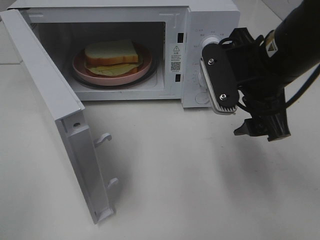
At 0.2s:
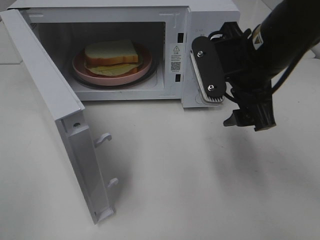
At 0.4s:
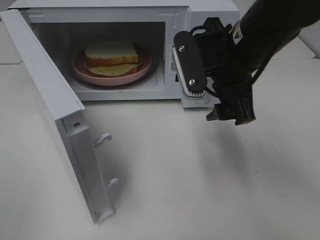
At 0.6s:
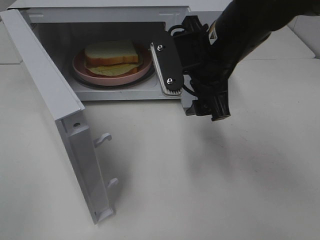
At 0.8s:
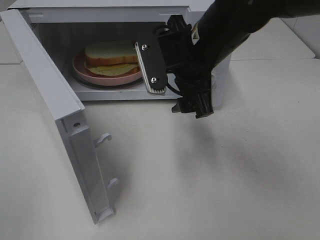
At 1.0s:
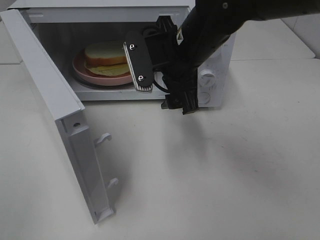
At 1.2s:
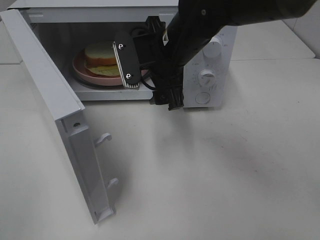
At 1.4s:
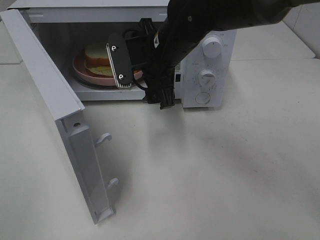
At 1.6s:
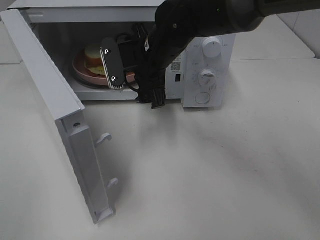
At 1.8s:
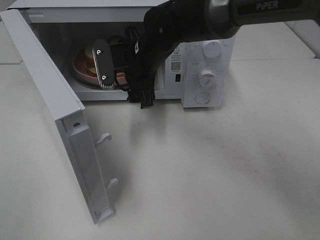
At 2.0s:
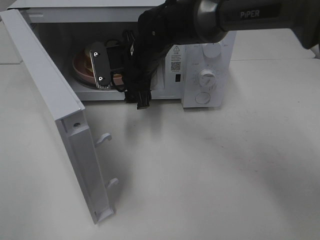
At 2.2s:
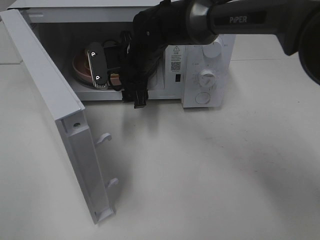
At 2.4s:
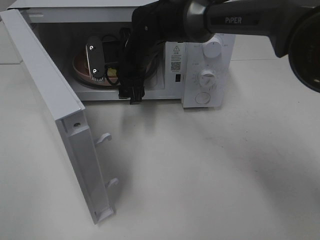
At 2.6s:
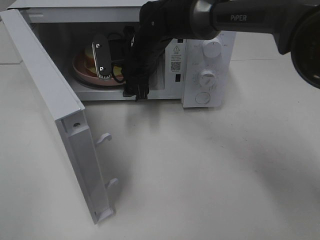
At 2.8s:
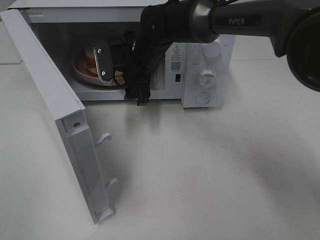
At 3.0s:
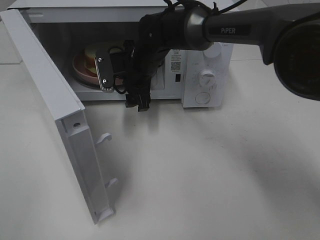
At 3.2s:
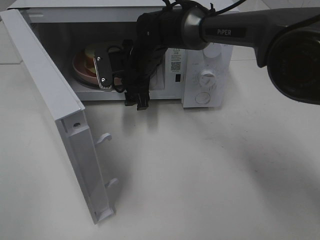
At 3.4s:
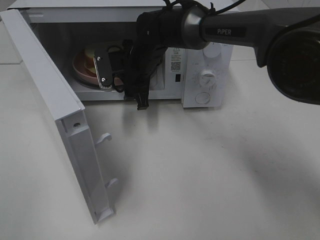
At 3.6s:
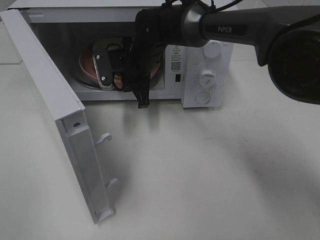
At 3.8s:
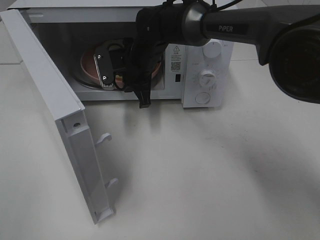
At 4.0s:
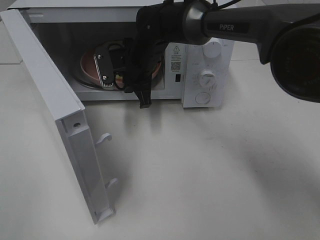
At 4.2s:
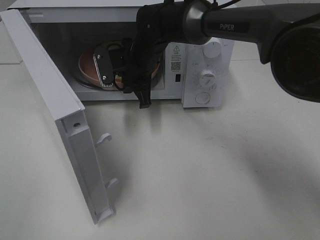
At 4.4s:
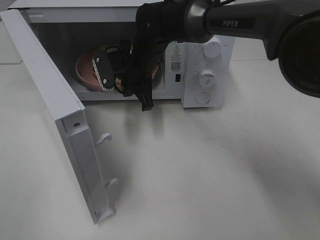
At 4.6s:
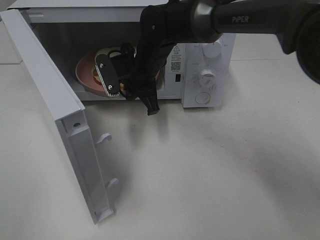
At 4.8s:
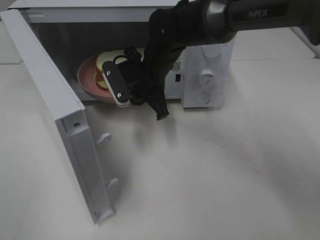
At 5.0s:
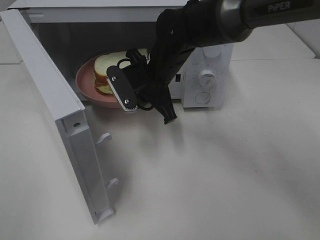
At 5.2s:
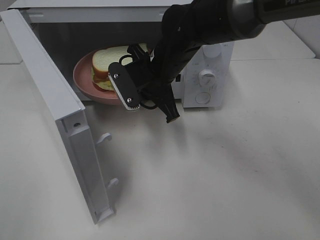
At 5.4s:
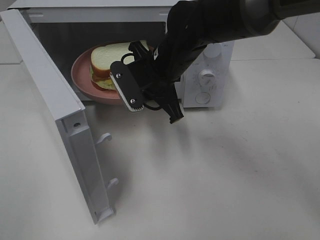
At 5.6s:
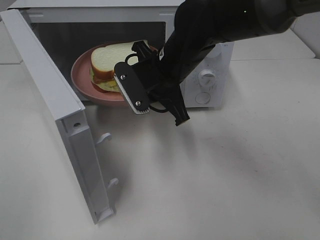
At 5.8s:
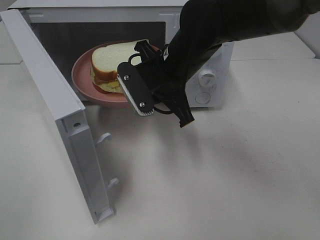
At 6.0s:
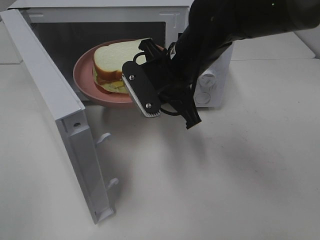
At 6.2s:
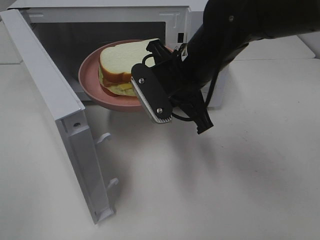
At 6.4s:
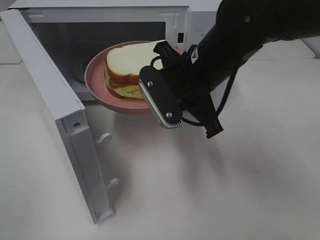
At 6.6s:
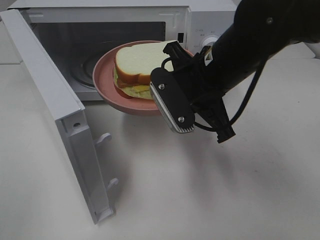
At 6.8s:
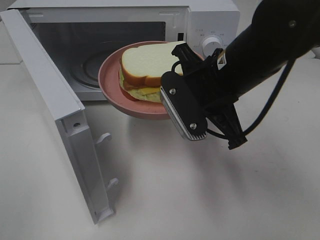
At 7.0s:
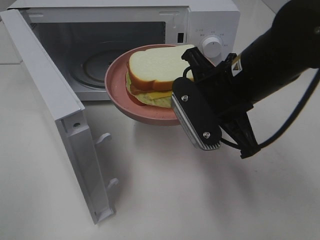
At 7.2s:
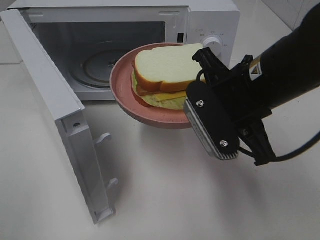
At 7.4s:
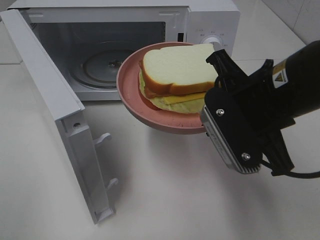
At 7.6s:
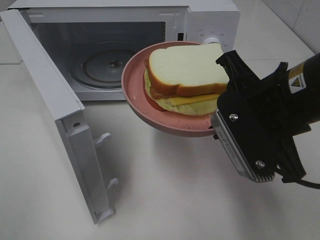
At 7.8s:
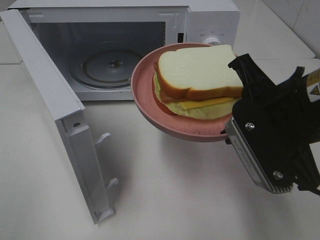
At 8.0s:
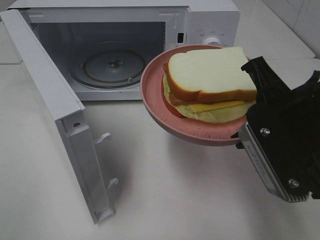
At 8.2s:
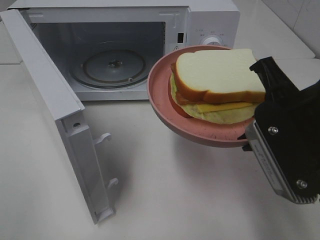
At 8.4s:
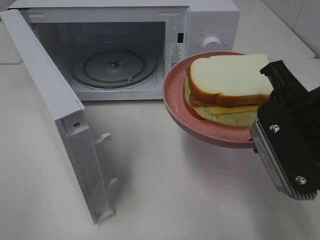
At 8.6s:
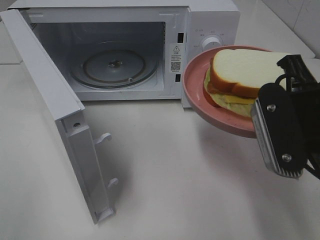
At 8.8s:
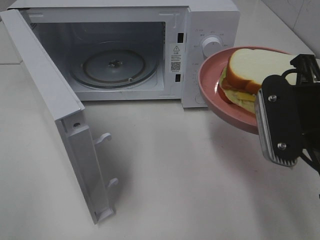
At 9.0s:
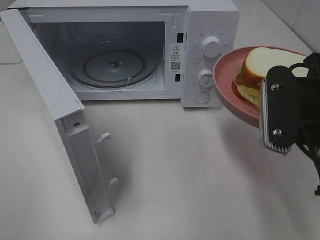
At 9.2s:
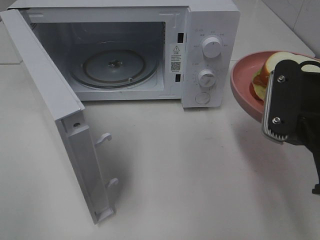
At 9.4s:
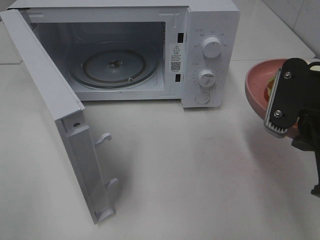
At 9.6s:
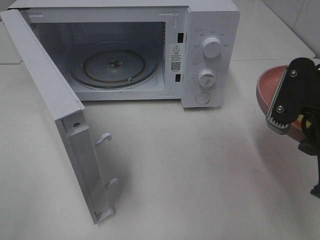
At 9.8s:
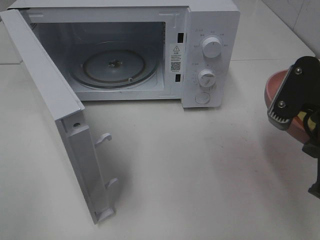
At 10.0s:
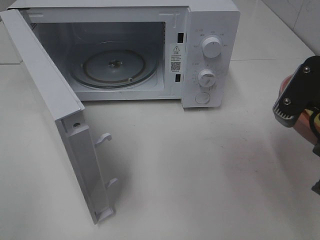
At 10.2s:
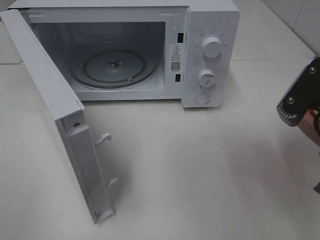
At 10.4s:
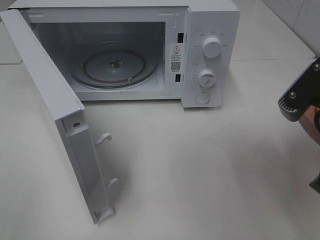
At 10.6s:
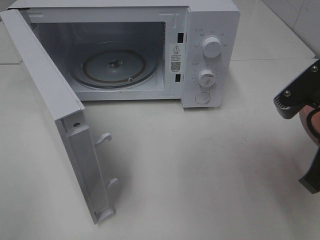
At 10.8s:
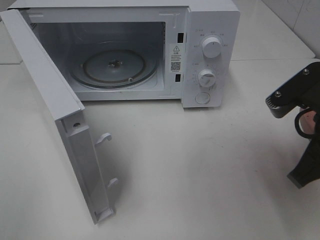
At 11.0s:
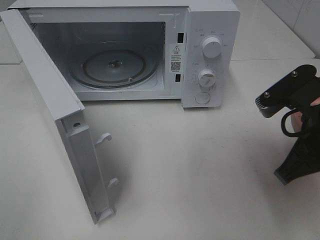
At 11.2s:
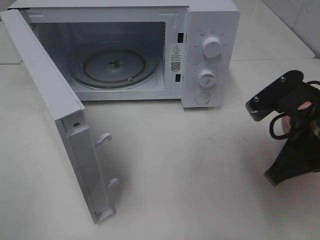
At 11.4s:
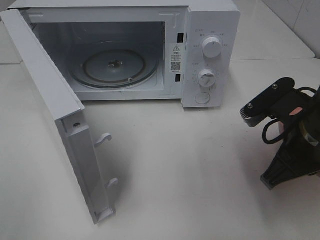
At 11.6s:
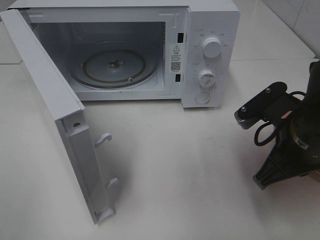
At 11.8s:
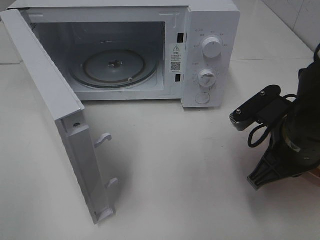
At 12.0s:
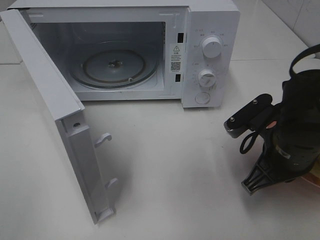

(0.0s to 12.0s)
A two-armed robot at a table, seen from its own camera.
Task of the whole recording: Heat Sandwich.
Step, 0.0s - 3.6s: Right hand: grab the plate with the sandwich.
0.0s - 1.6s: The right gripper travels to the left, forward and downward by some 20 cm.
1.6s - 3.0s: The right gripper goes roughly 5 cm forward.
3.0s - 4.4s: The right gripper closes up.
4.4s - 6.0s: The right gripper is displaced backward, to the right and upward by some 15 cm.
6.0s - 7.6s: The right gripper moves backward and to the right, about 15 cm.
7.6s - 9.0s: The right gripper moves some 5 cm.
10.4s - 12.0s: The right gripper heads downward and forward, covering about 10 cm.

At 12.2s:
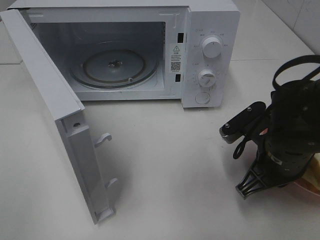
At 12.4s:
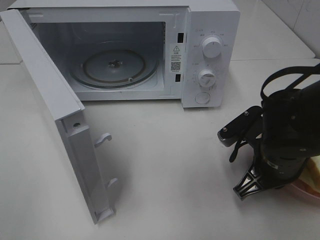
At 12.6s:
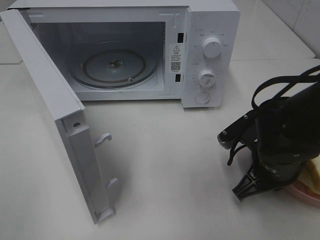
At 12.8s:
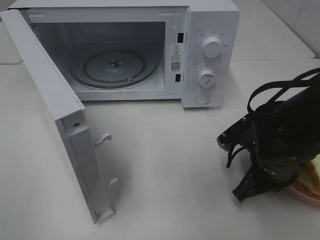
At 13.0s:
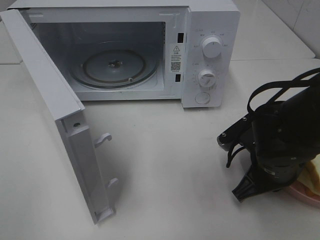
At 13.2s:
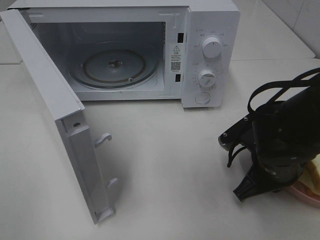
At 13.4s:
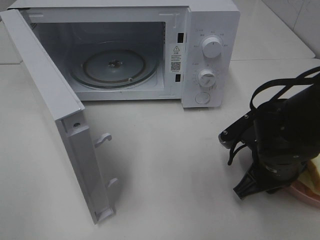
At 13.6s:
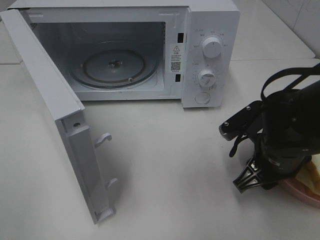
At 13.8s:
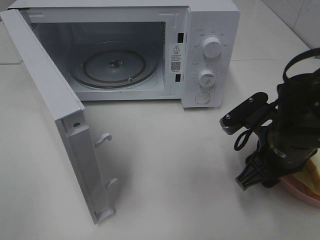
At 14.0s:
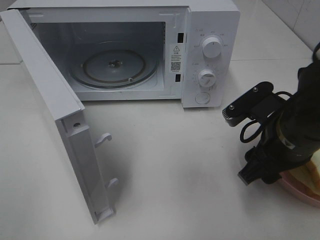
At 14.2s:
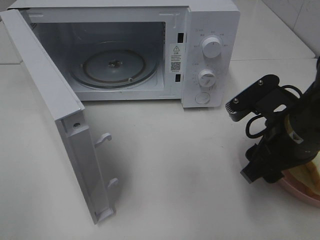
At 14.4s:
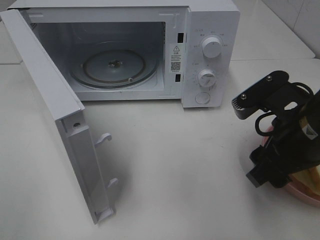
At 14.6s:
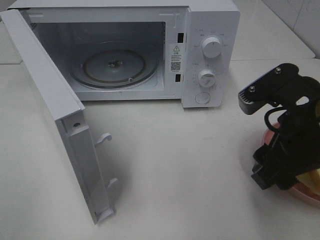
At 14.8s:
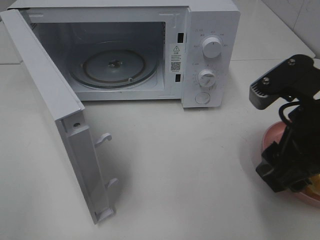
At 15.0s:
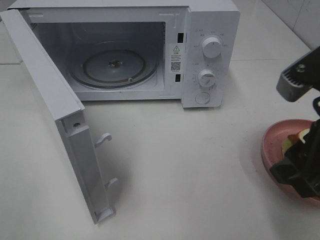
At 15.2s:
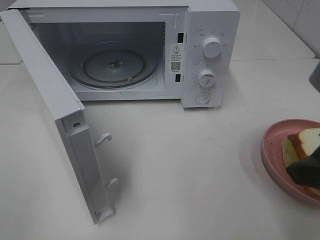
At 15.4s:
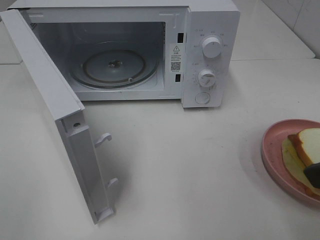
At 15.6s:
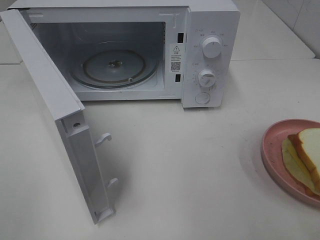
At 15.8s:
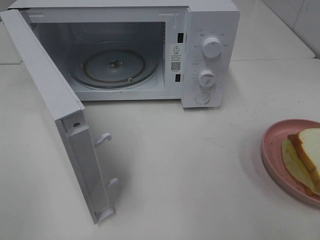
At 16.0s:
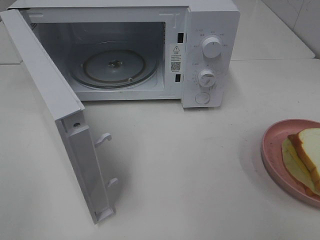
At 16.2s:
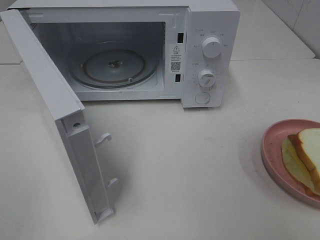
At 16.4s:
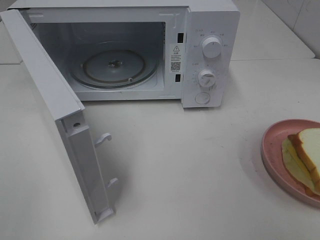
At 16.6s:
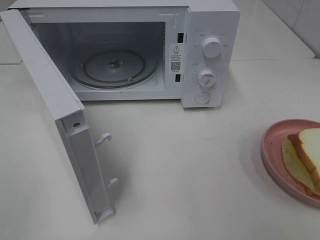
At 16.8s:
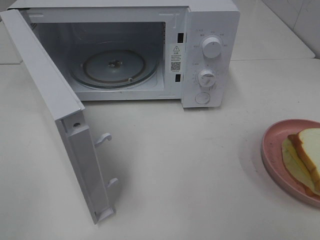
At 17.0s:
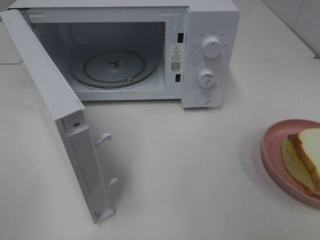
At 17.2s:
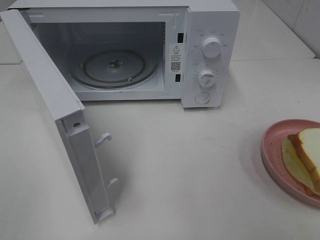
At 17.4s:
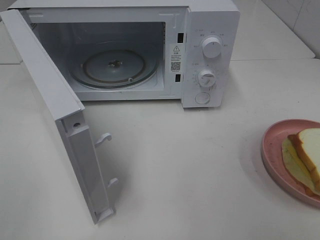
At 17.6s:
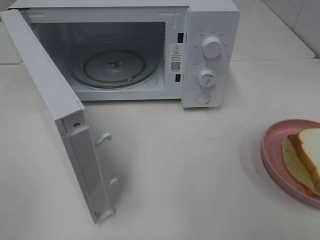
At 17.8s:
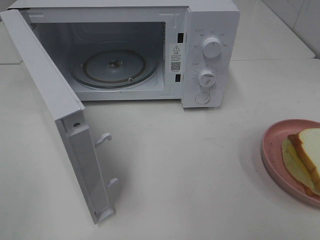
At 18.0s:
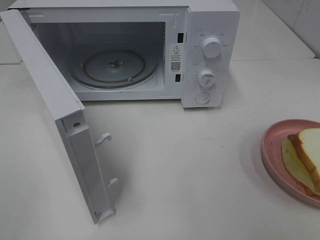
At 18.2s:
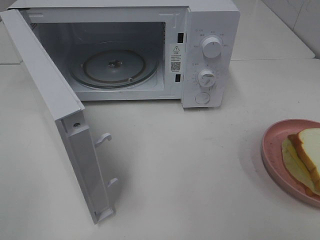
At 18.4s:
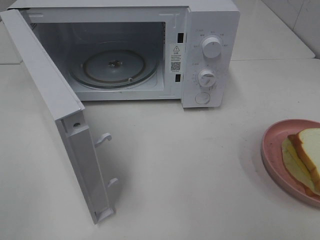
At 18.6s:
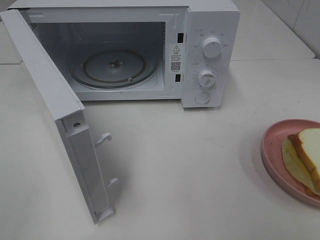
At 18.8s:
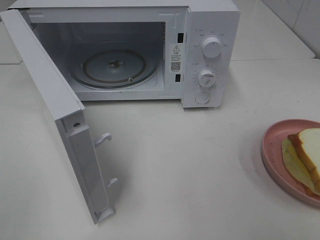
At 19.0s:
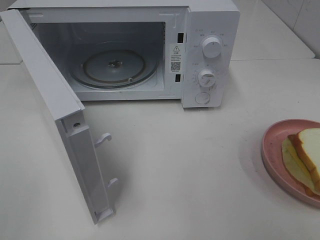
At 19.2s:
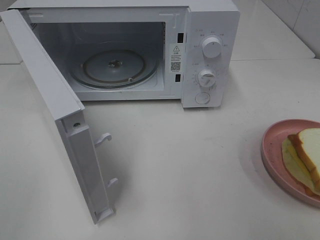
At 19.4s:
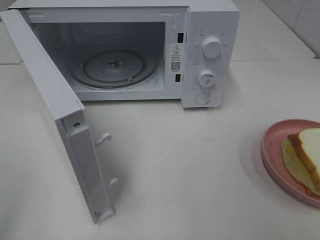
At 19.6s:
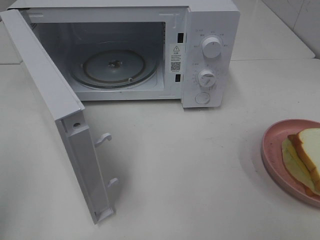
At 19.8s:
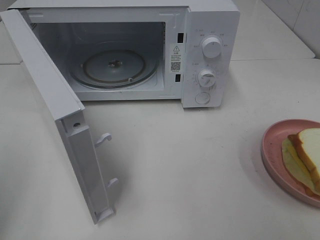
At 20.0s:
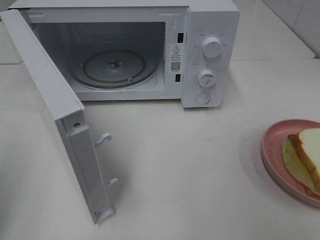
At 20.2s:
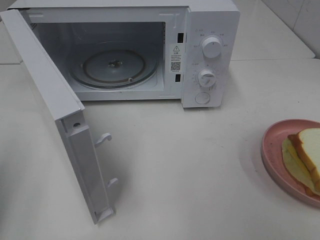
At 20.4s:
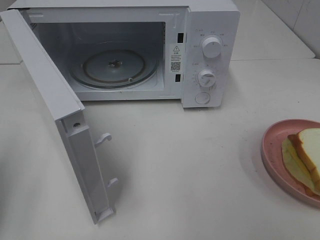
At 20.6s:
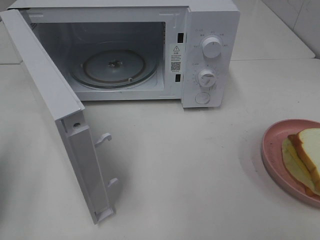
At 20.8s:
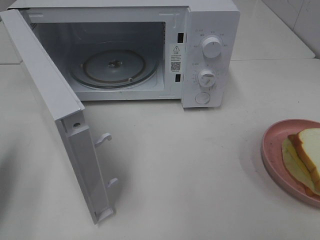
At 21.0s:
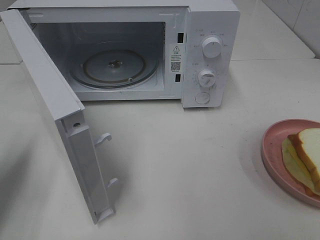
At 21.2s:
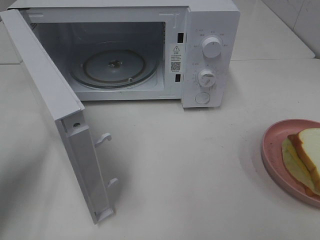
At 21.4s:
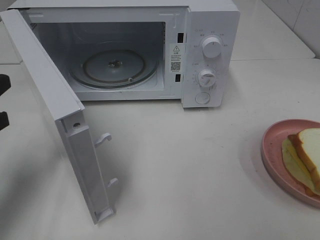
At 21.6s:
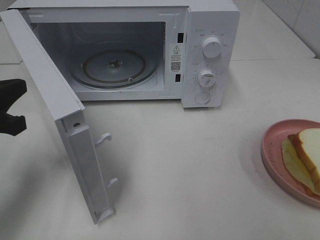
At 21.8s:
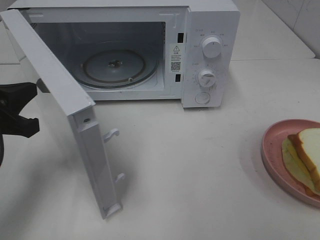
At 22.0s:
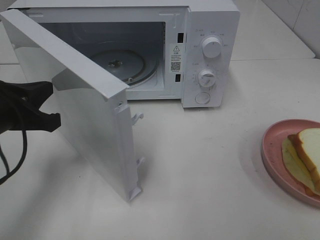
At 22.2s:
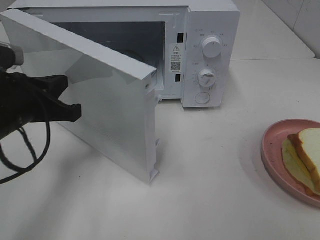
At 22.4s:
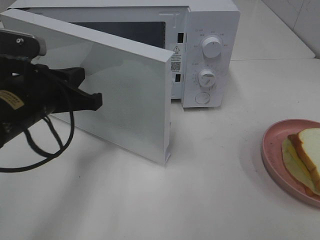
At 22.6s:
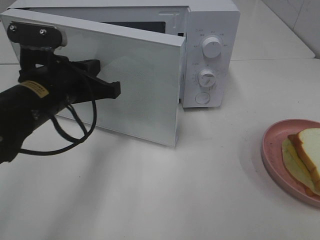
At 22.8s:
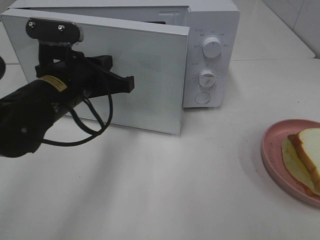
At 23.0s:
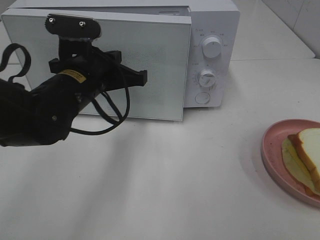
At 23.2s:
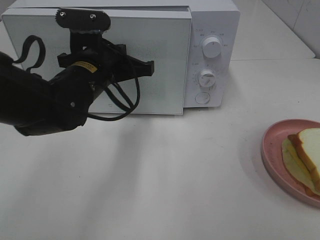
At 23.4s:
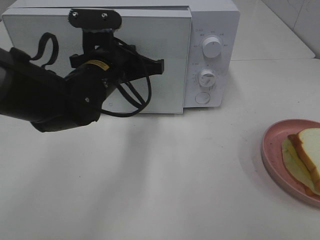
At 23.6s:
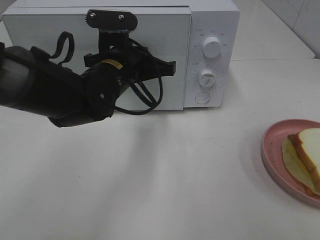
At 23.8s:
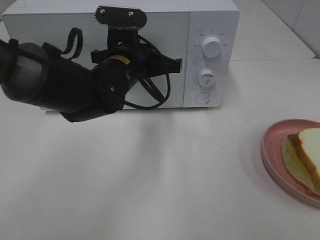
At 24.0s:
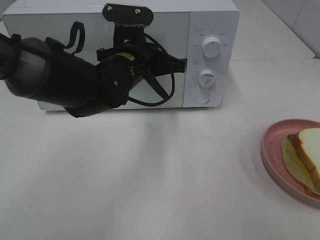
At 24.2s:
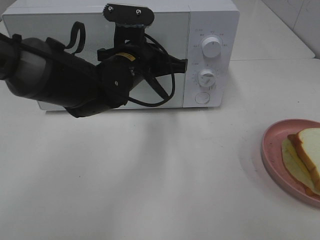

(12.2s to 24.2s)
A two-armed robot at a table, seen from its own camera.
Task of the whole recording: Heat Sandwich.
Step, 12.2s - 15.0s: Right hand: place the plate on the table.
12.2s - 13.8s: The right gripper opens.
13.8s - 15.2s: The right gripper goes approximately 15 cm upward and backward.
15.2s - 16.6s: The right gripper heads backward and to the right, covering approximately 15 cm.
19.8s - 21.2s: The left gripper heads forward and downward, covering roughly 15 cm.
21.2s - 22.6s: The left gripper heads to the right and forward, covering roughly 15 cm.
22.6s - 24.2s: The left gripper shifts some 15 cm to the right and forward.
